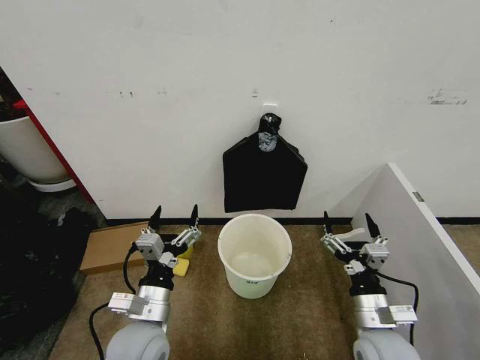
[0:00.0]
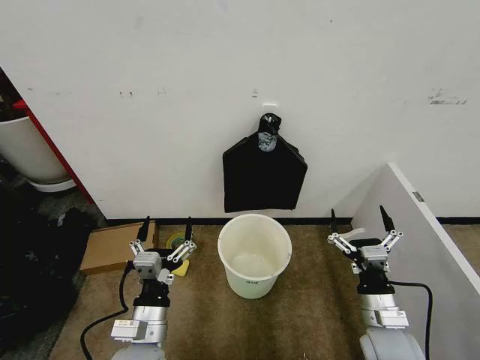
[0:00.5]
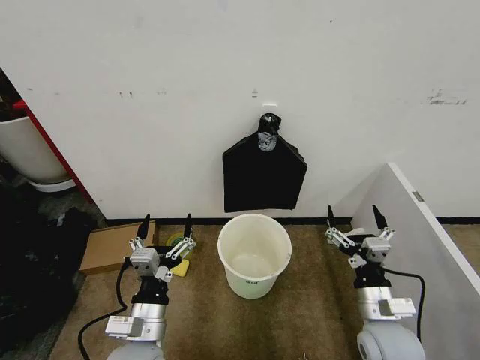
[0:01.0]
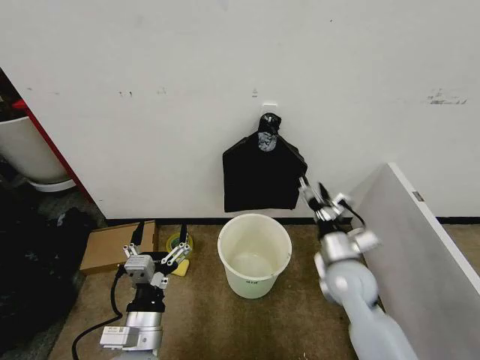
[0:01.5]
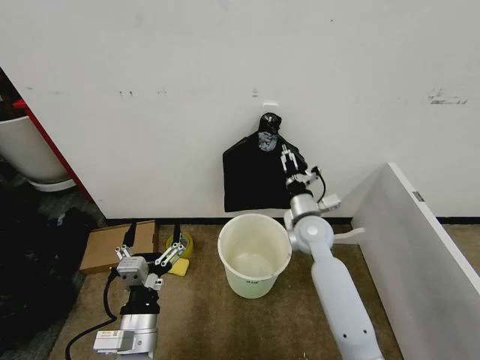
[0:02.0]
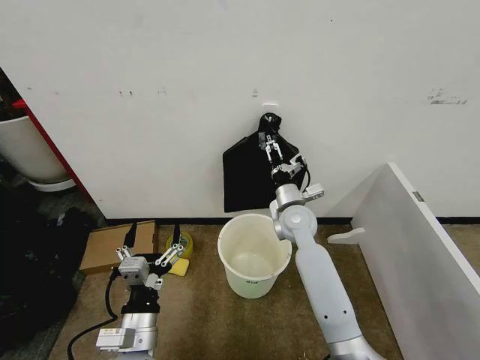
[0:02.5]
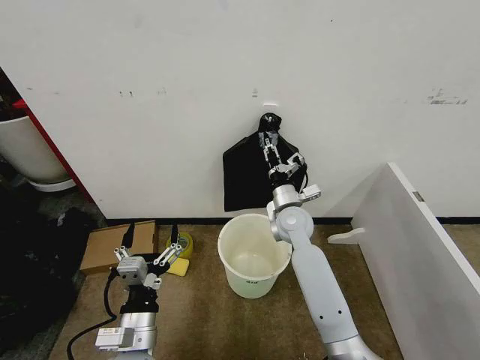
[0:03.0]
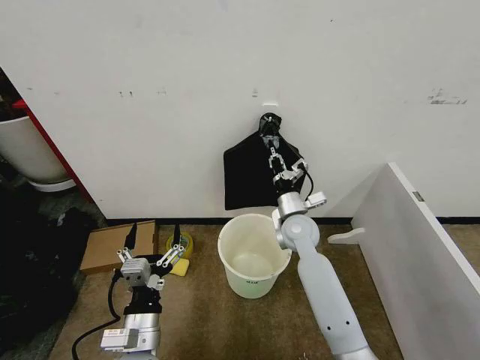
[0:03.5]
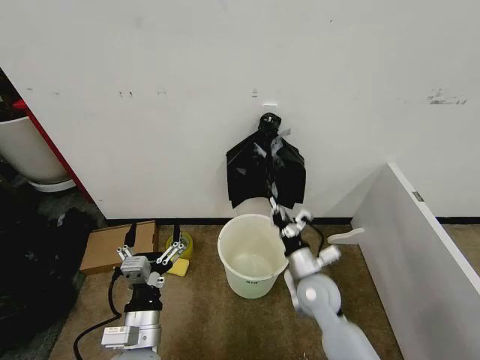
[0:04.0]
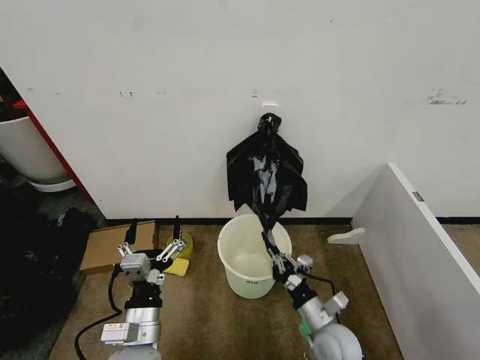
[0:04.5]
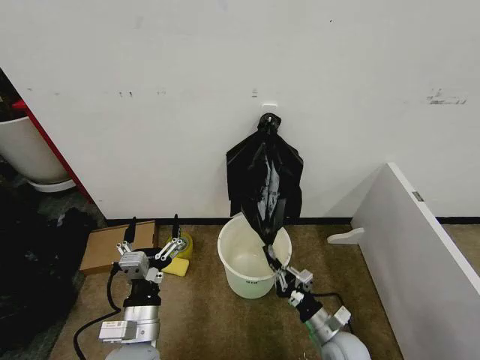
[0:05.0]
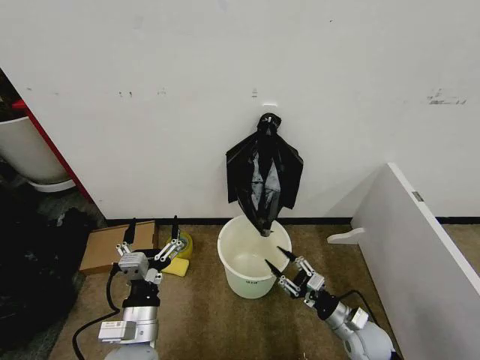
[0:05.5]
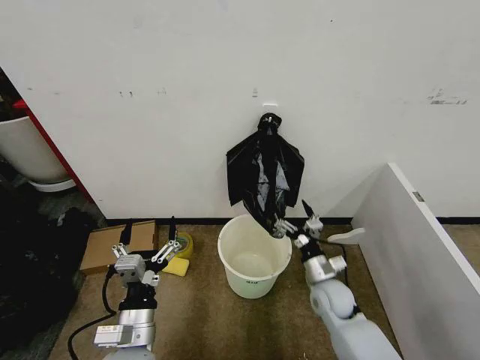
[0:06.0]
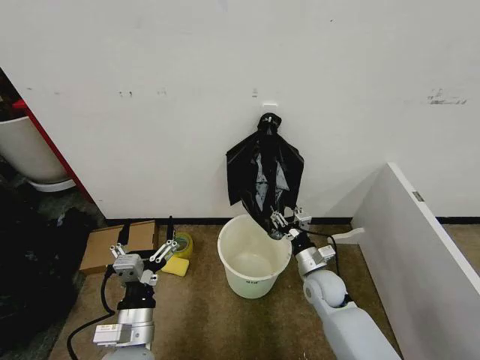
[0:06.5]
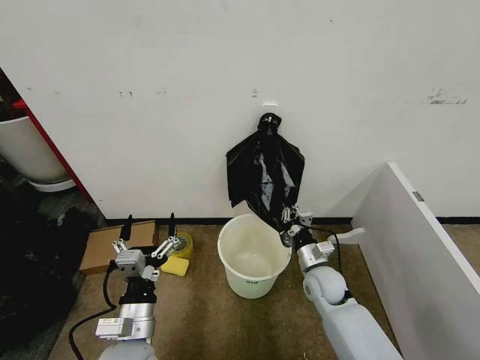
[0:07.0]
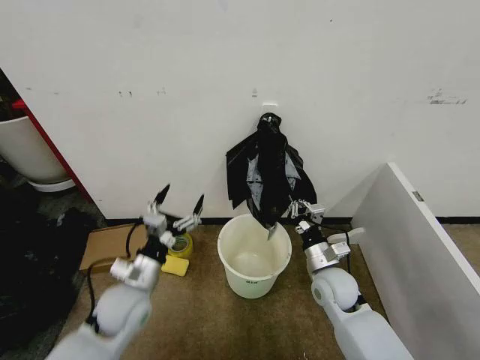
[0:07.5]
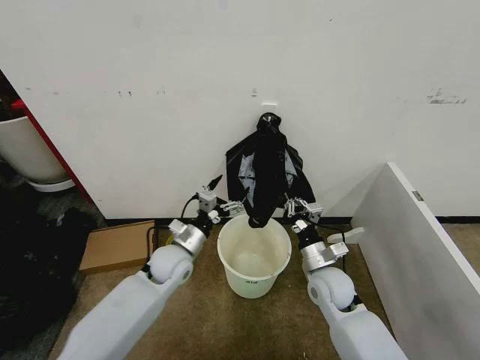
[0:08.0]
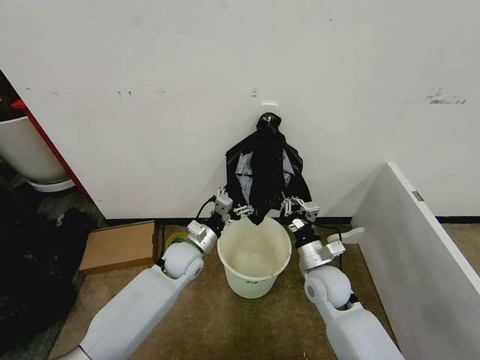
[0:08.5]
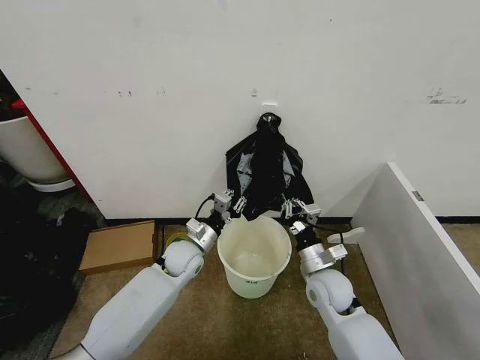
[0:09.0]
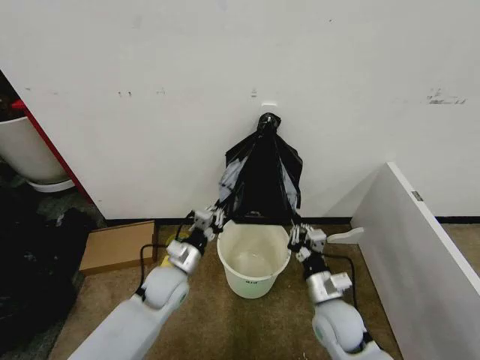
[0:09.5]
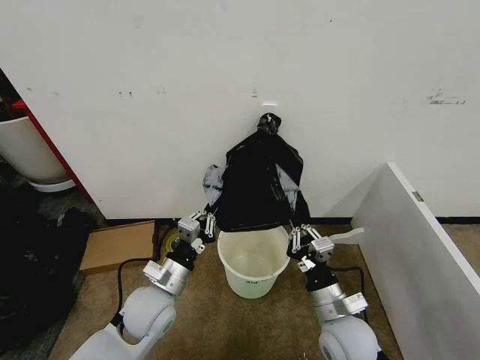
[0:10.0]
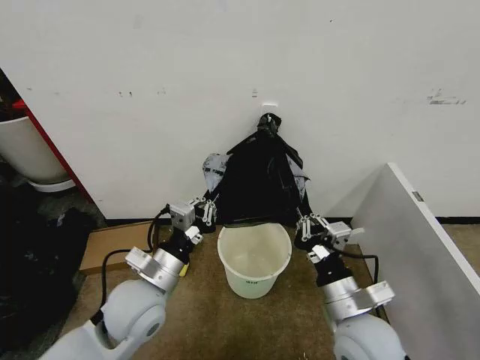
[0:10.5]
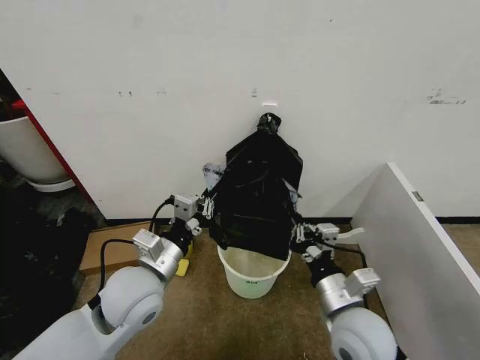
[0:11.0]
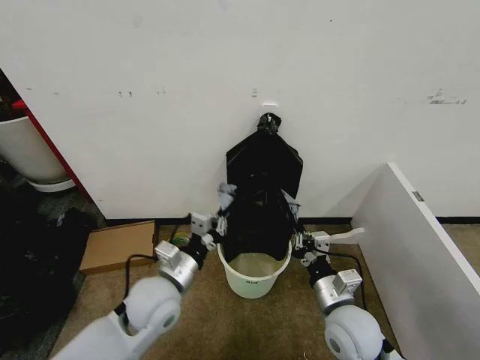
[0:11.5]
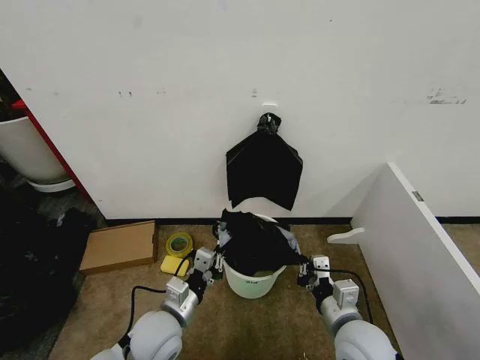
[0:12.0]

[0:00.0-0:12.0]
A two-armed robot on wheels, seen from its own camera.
Task of the whole recording: Place the garbage bag over the trash bin.
0:02.0 to 0:04.0: The right gripper travels backward and downward by roughly 15 cm, and closes.
0:04.0 to 0:06.0: The right gripper goes roughly 10 cm downward and to the right, and opens.
0:06.0 to 0:08.0: The left gripper goes roughly 20 cm forward. The right gripper shifts approximately 5 cm upward, and closes.
0:08.0 to 0:10.0: The grippers both shift backward by some 10 cm. The left gripper closes up.
0:10.0 to 0:12.0: The left gripper travels upward and back again, roughly 10 cm each way. Meanwhile the right gripper travels upward and back again, some 10 cm each way.

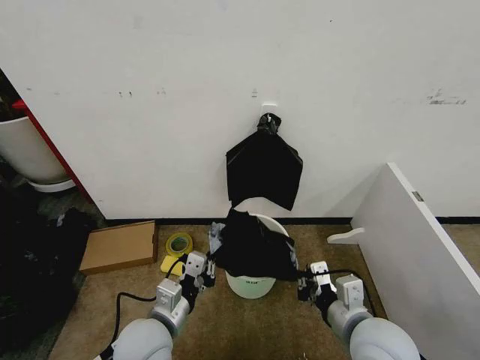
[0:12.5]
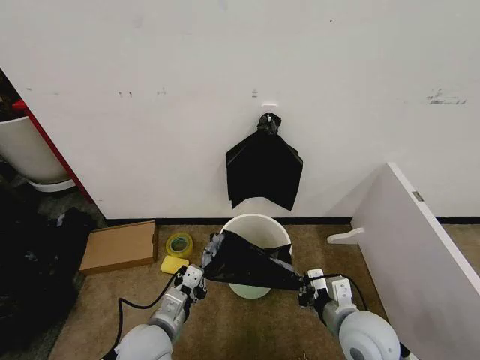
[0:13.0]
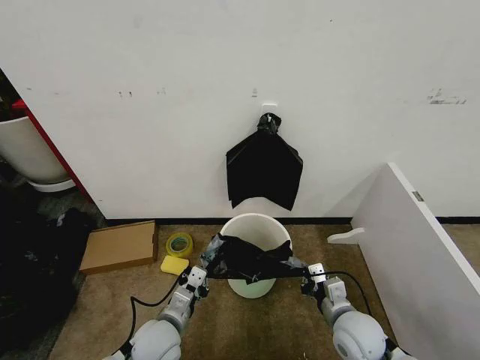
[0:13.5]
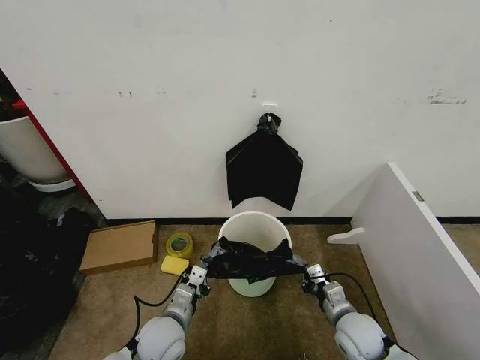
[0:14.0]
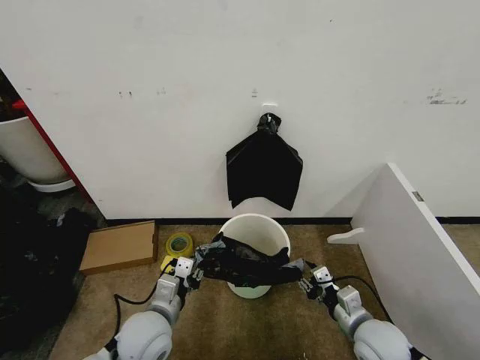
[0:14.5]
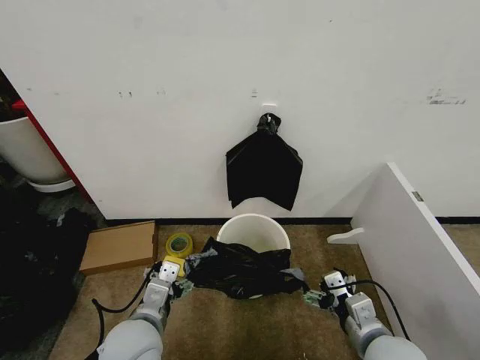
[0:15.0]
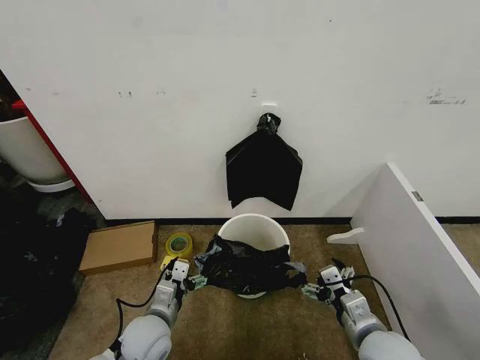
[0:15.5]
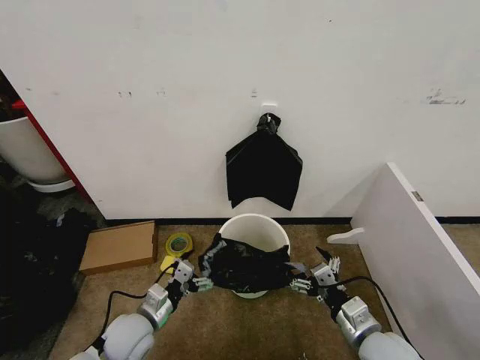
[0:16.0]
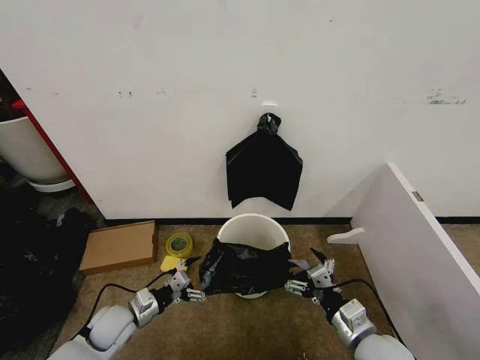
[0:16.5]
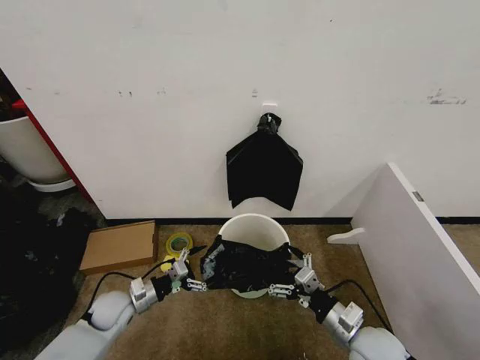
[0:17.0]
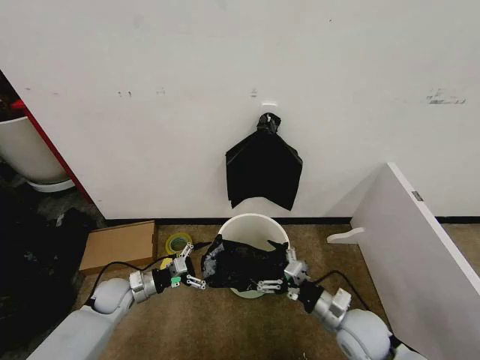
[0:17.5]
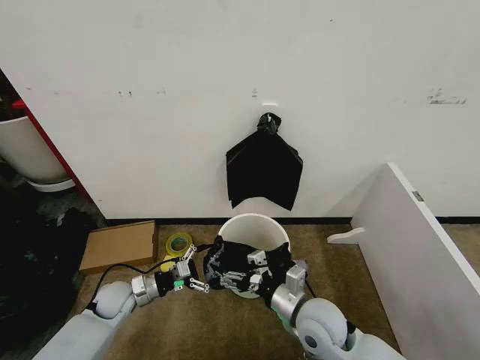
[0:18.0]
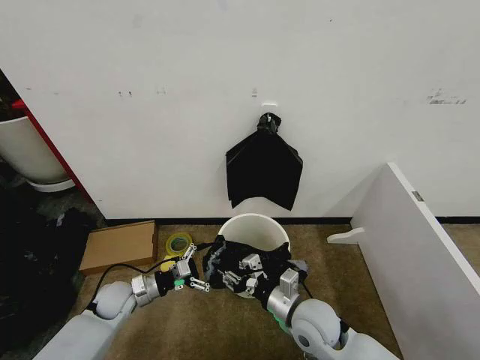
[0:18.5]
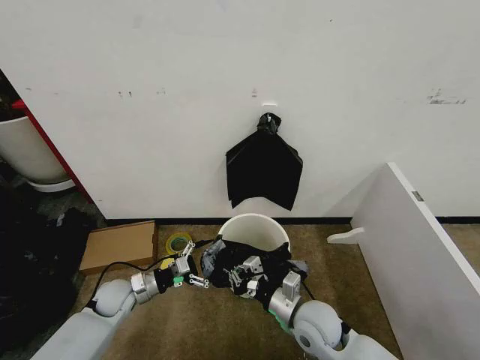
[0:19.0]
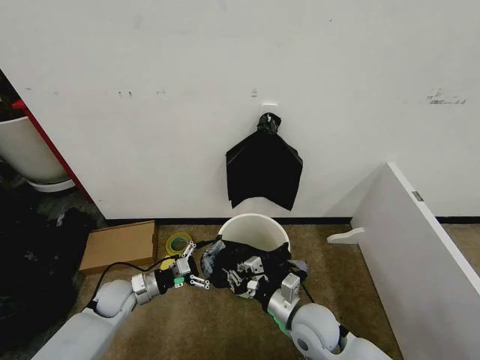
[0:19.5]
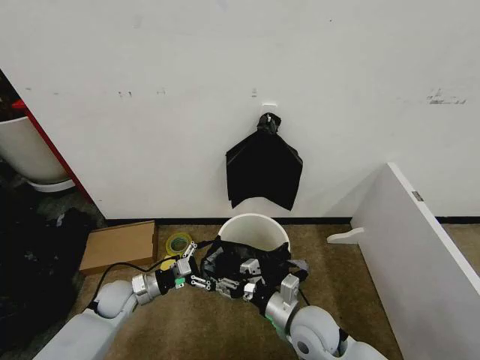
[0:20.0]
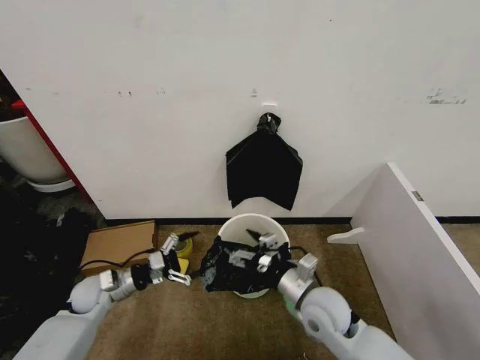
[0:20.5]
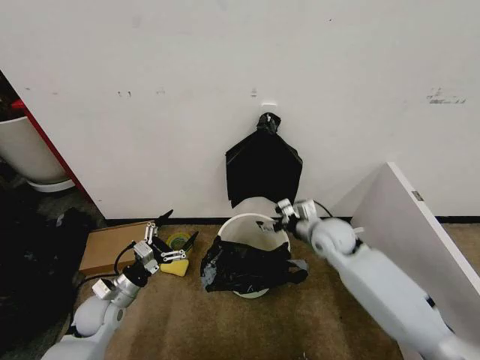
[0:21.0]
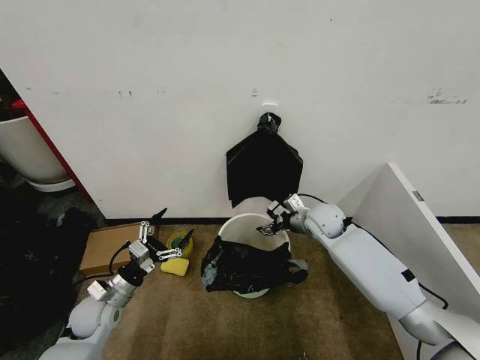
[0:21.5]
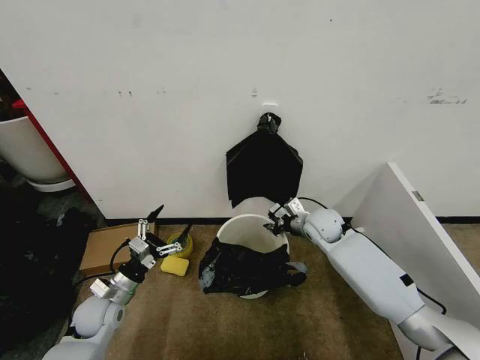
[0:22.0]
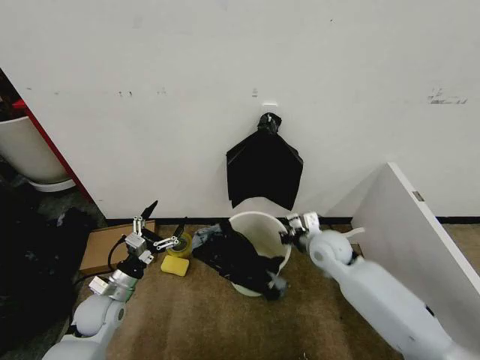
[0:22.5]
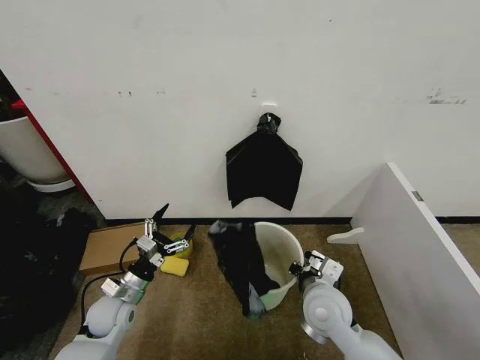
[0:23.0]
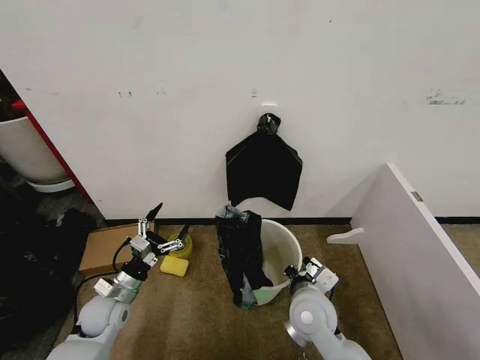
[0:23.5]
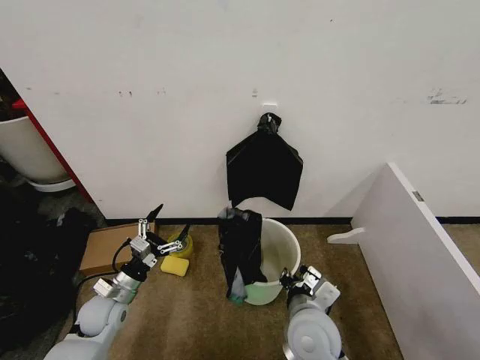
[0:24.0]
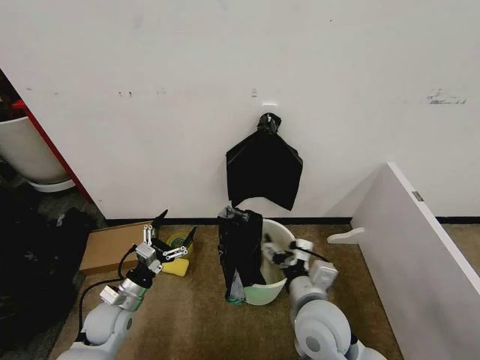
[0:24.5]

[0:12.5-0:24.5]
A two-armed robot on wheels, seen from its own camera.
Task of the whole recording: Place the garbage bag over the trash bin.
0:12.5 to 0:14.5: The right gripper shifts approximately 15 cm downward and to the right, and opens up, while the left gripper opens up.
0:14.5 to 0:16.5: The right gripper opens up, while the left gripper goes approximately 15 cm to the left and downward, and opens up.
0:16.5 to 0:18.5: The right gripper travels to the left and forward by about 15 cm, and closes, while the left gripper is displaced forward by approximately 5 cm.
0:18.5 to 0:20.5: The right gripper opens up. Meanwhile the left gripper changes place by about 5 cm.
0:20.5 to 0:22.5: The right gripper goes some 15 cm forward, and closes up; the left gripper moves about 5 cm.
0:22.5 to 0:24.5: The right gripper moves backward and to the left, about 20 cm, and opens.

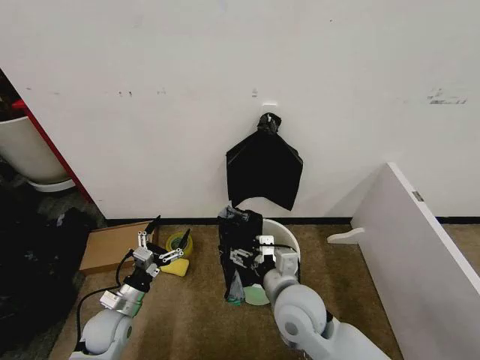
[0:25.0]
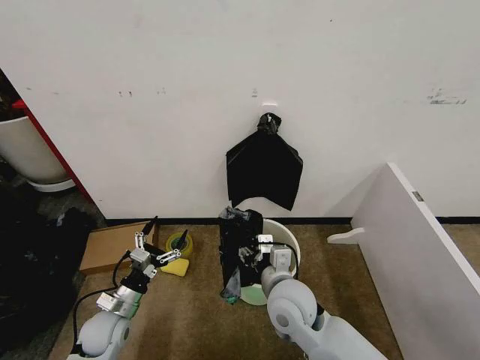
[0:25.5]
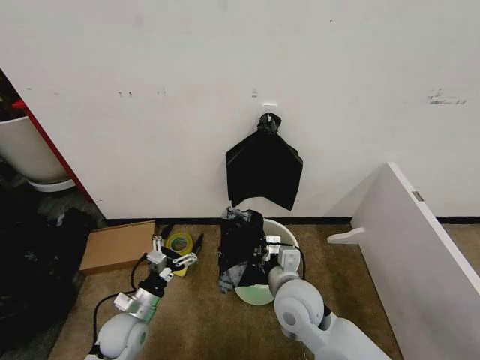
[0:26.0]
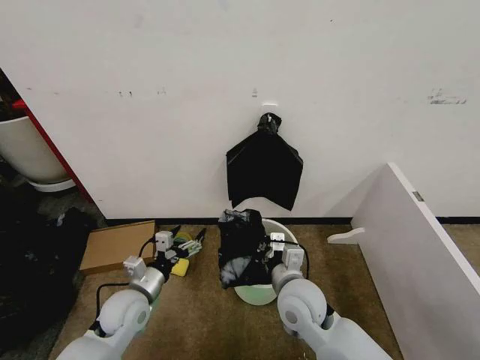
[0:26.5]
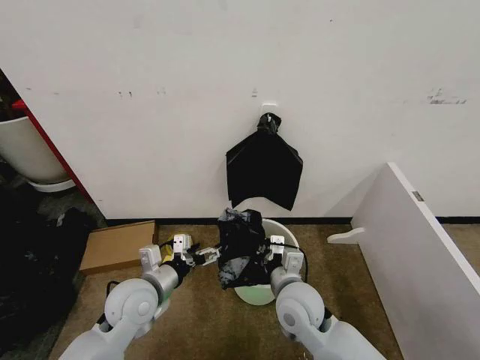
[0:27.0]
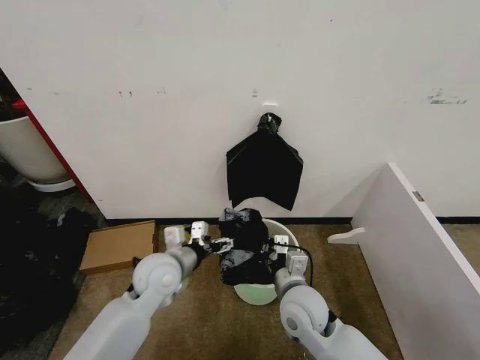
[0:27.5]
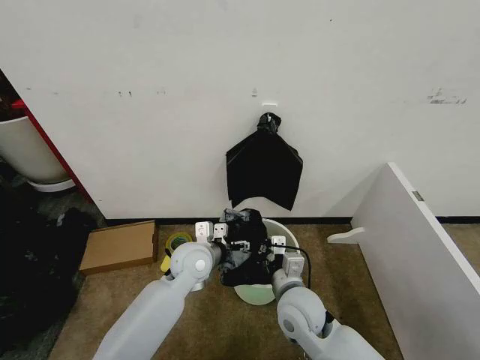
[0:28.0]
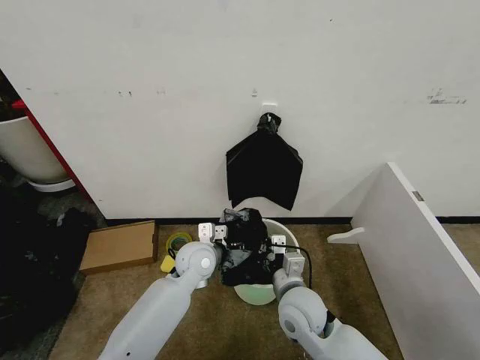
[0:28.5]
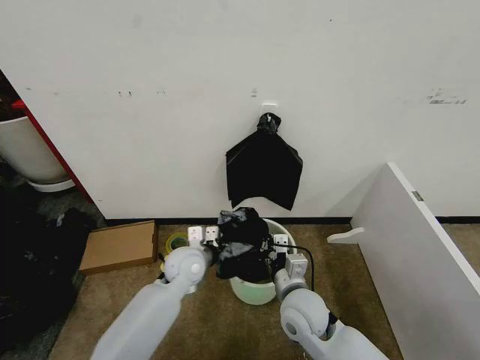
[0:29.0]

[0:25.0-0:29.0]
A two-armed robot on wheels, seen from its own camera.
Task of the whole recording: Place the garbage bag over the trash bin.
0:25.0 to 0:27.0: The right gripper closes, while the left gripper heads upward and to the right, covering approximately 15 cm.
0:27.0 to 0:29.0: The left gripper heads forward and to the right, covering some 15 cm, and closes its fingers.
